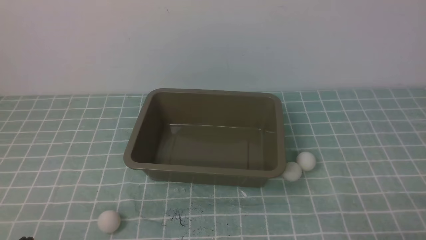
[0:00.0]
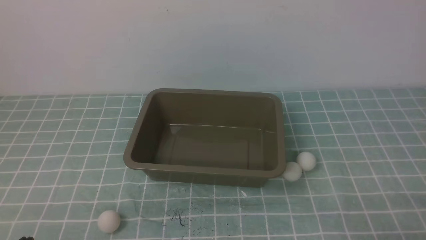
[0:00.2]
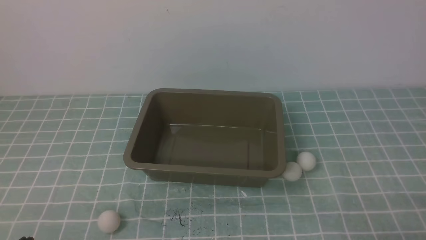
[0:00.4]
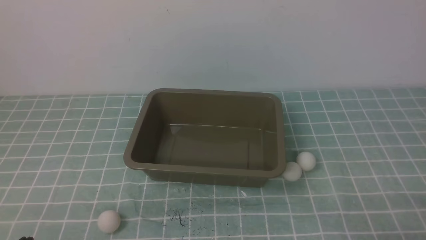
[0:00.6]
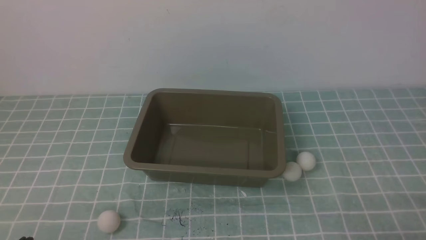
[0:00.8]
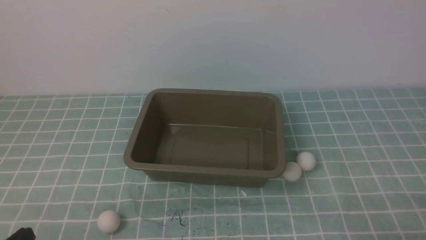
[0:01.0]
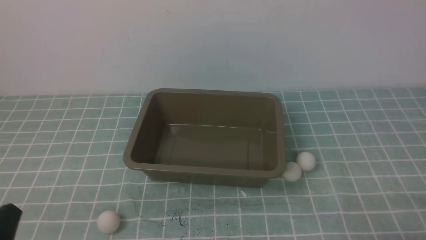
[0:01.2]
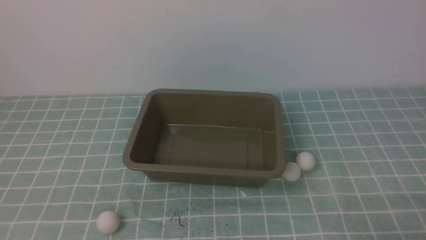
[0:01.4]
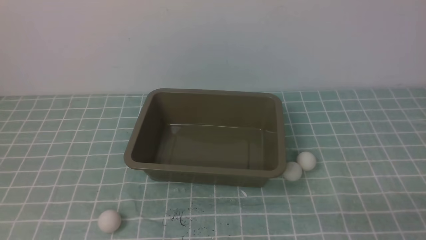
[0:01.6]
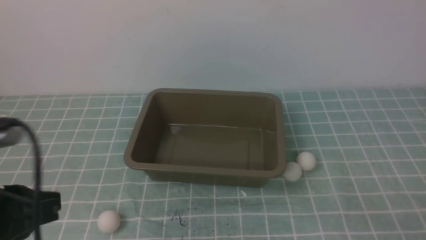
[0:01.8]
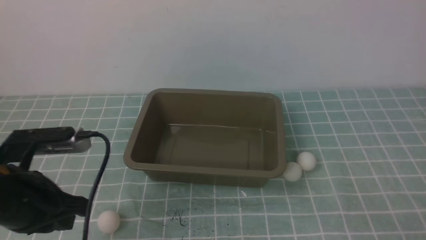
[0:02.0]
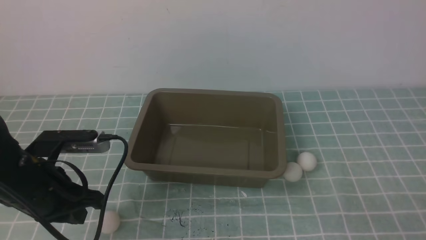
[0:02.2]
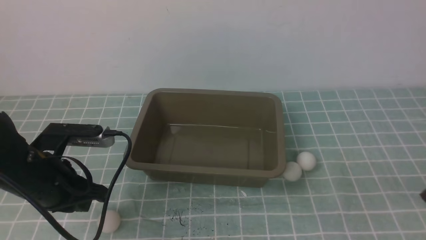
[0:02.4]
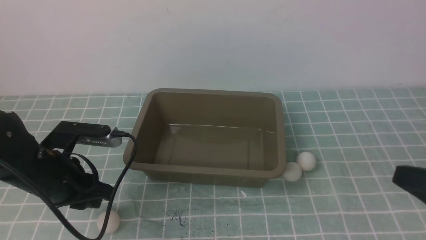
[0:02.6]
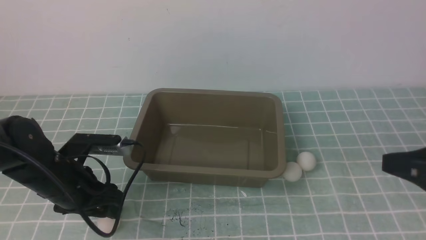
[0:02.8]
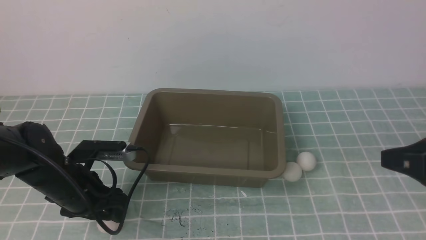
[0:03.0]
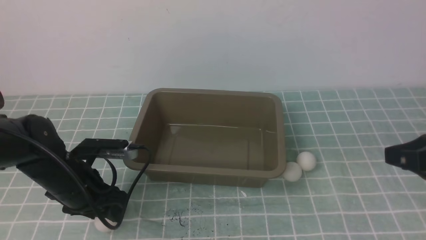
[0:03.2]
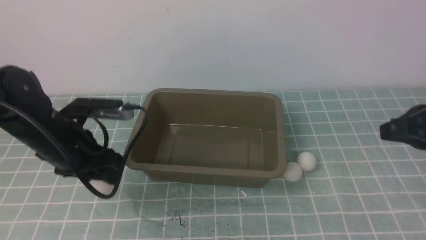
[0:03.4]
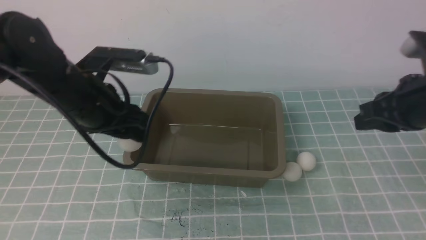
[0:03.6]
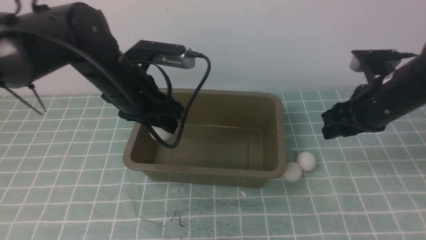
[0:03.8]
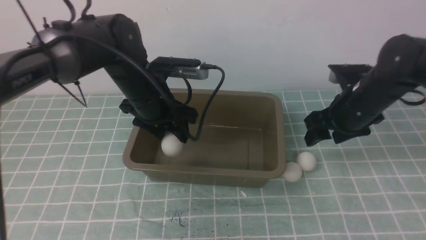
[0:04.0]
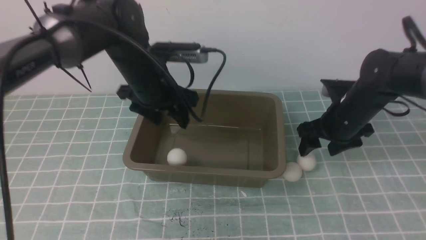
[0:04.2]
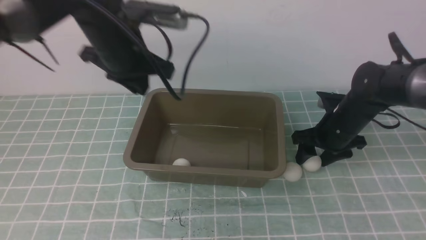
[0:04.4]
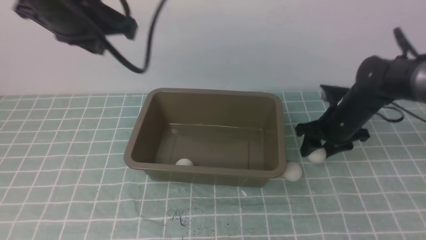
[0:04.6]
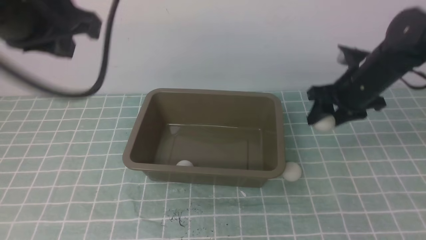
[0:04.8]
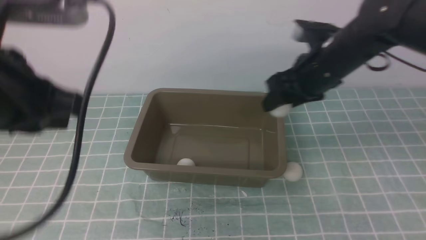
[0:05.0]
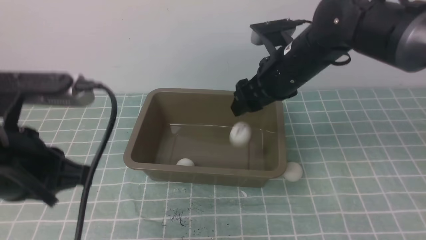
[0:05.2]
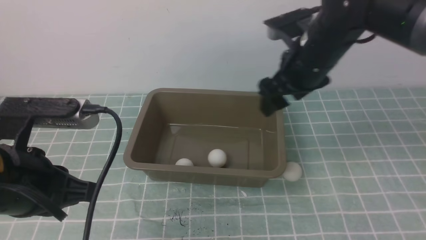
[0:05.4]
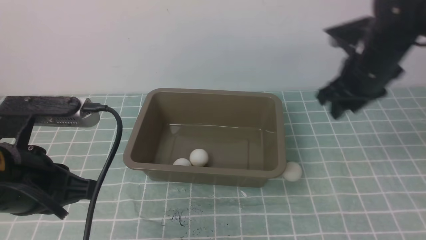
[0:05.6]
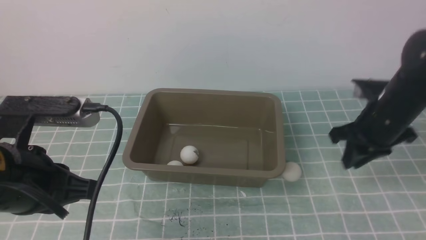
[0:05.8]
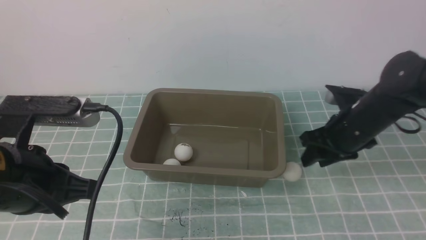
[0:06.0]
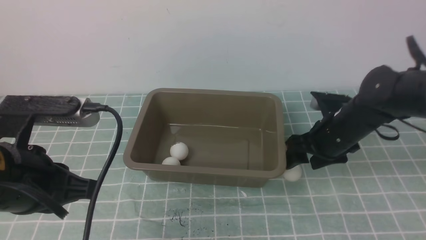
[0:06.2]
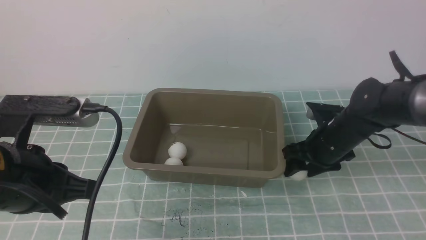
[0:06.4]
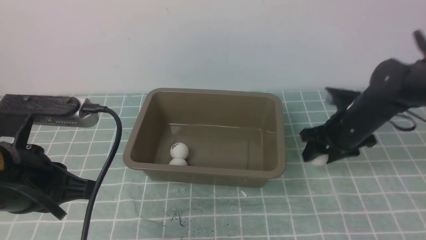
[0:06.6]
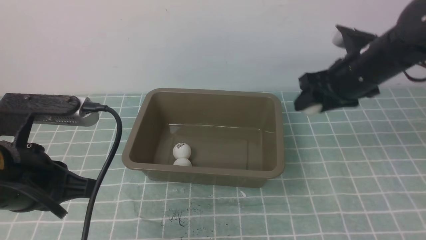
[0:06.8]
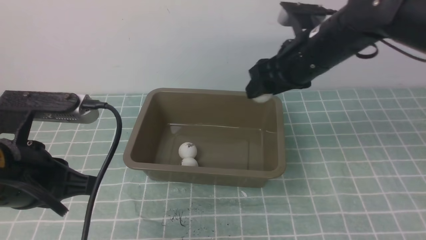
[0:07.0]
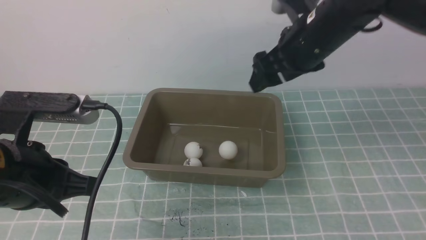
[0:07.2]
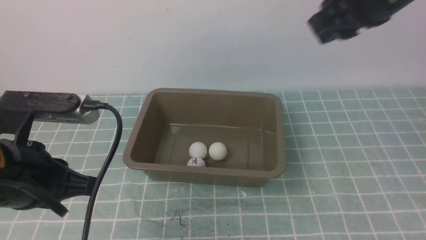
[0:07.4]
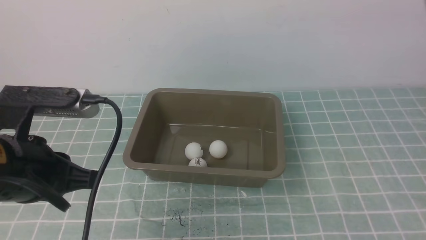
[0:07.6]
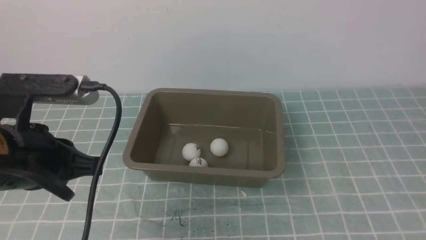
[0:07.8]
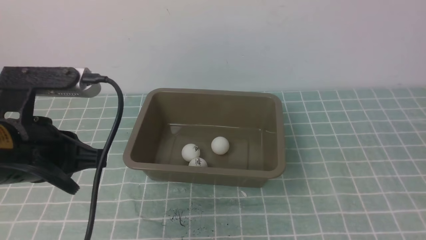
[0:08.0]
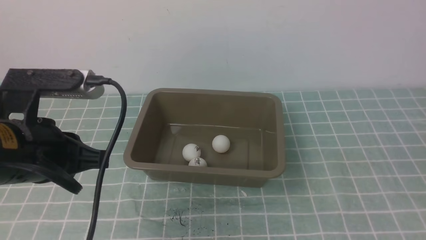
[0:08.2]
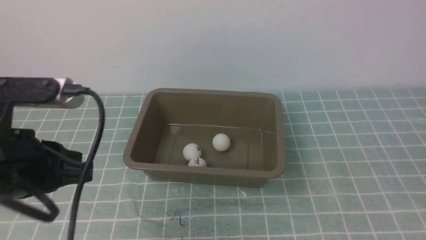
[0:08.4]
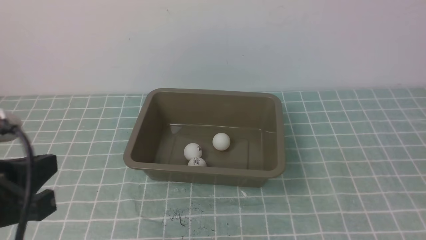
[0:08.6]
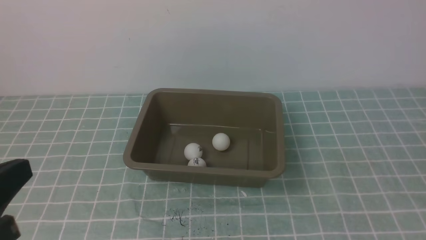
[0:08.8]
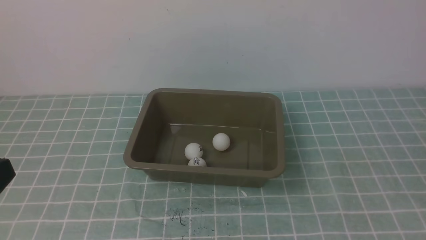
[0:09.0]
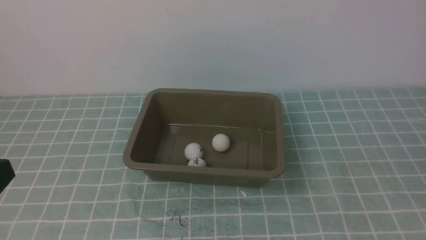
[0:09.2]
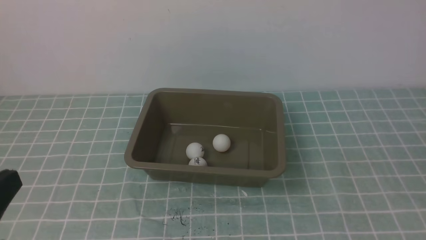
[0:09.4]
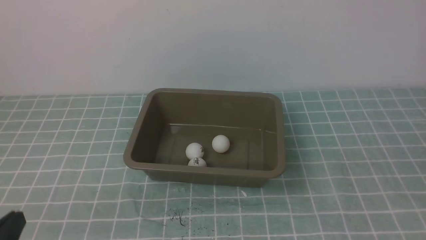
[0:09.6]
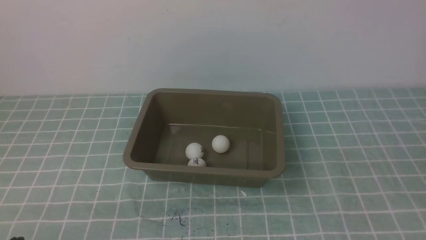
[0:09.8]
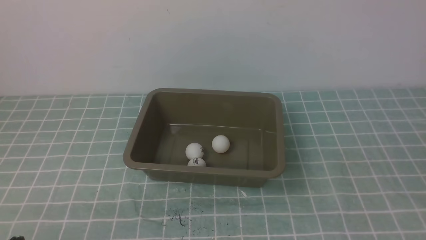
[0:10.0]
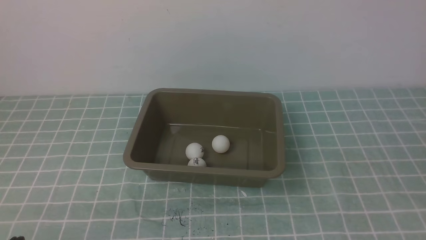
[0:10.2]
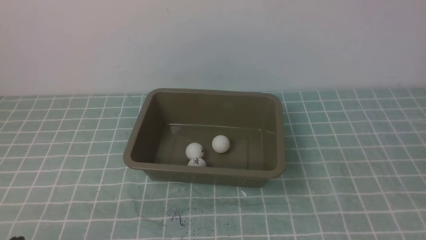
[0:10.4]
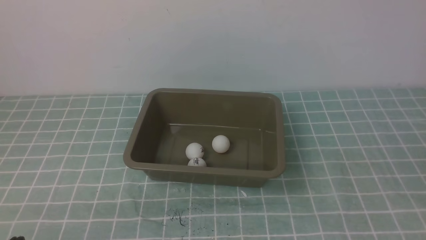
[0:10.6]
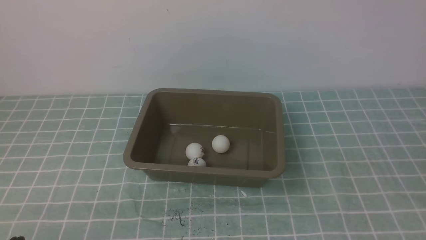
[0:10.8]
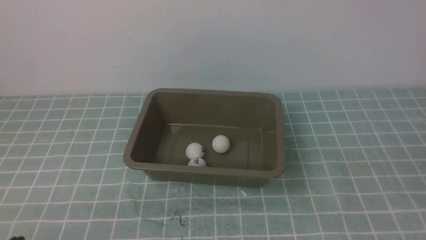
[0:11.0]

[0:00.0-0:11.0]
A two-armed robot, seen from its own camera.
Step, 0:00.0 to 0:03.2: use the left arm to clamp the table tennis ball closest to it.
Step, 0:03.4 to 0:04.0: use the left arm to put the table tennis ball into the box.
Step, 0:04.2 to 0:05.0: use the right arm to clamp the table tennis ball closest to it.
Step, 0:05.2 to 0:05.4: use the right arm to put the table tennis ball into the box.
Step, 0:05.6 to 0:06.8: use the right arm to clamp the table tennis ball closest to it.
Step, 0:07.0 to 0:07.2: use the right arm to put the table tennis ball into the box.
0:01.6 to 0:03.2: The right gripper travels forward and upward by about 20 cm; the left gripper is displaced forward and downward by approximately 25 cm, and opens its fingers.
0:03.2 to 0:04.8: The left gripper moves upward, roughly 25 cm, and closes its fingers. The right gripper heads forward, covering about 20 cm, and opens up.
0:04.8 to 0:06.2: The left gripper shifts some 15 cm downward and backward. Meanwhile the right gripper travels downward by roughly 5 cm.
0:06.2 to 0:07.8: The right gripper heads backward and upward, covering some 40 cm, and closes up.
0:07.8 to 0:09.4: The left gripper heads backward, covering roughly 10 cm. Meanwhile the right gripper heads downward and backward, covering some 10 cm.
0:09.4 to 0:11.0: The left gripper heads downward, covering about 10 cm.

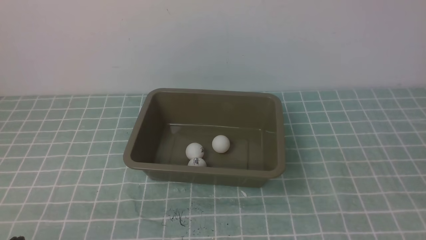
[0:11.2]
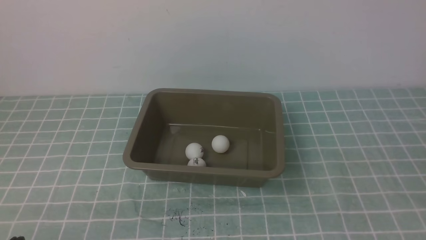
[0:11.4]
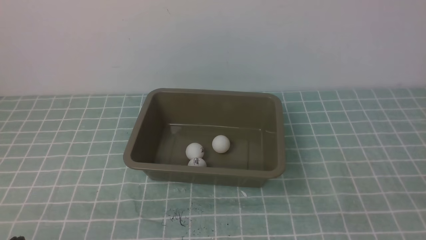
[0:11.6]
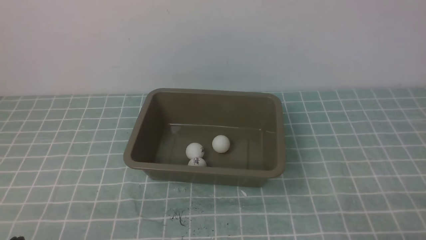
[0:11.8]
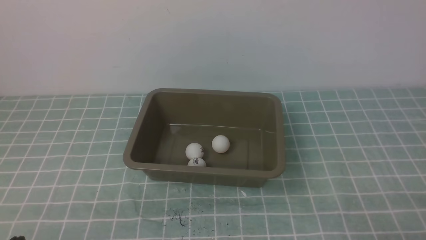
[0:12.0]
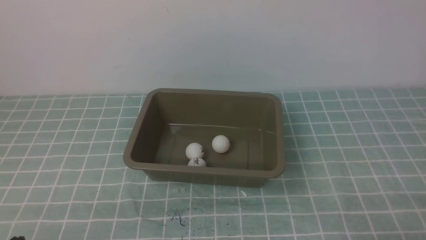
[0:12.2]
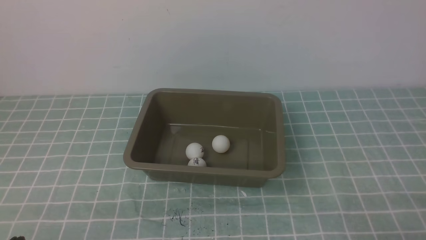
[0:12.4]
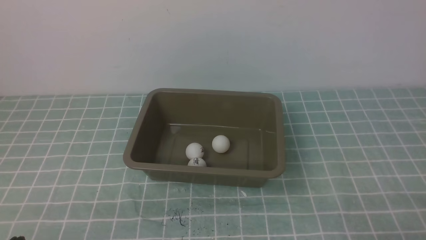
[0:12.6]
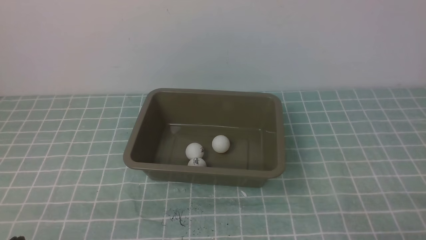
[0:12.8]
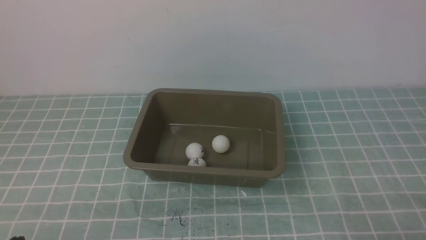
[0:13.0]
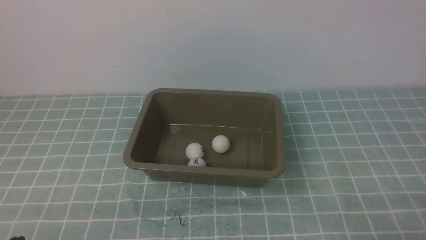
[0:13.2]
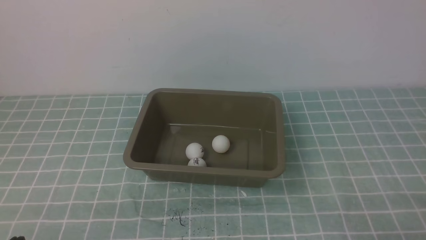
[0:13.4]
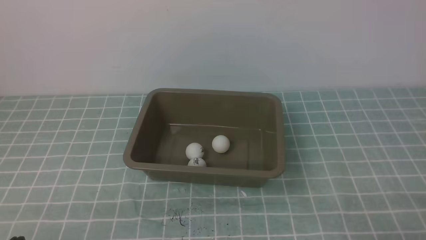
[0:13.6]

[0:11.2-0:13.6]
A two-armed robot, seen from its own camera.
0:12.4 to 0:13.6: Both grippers stay put.
